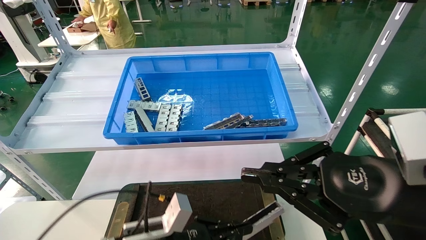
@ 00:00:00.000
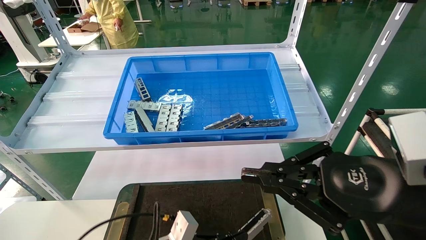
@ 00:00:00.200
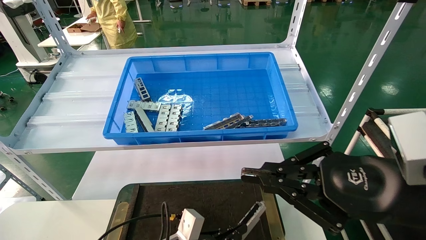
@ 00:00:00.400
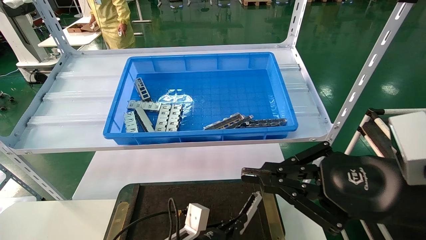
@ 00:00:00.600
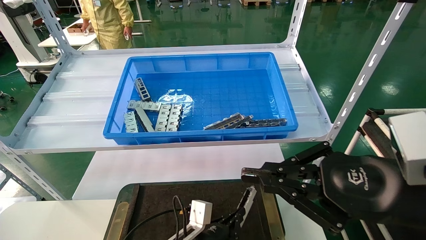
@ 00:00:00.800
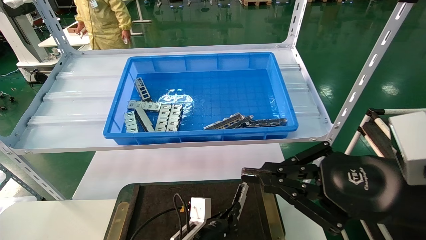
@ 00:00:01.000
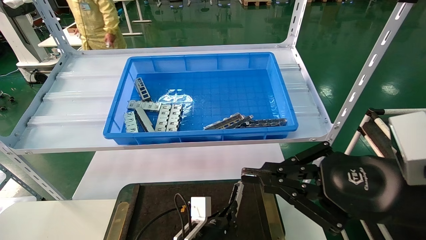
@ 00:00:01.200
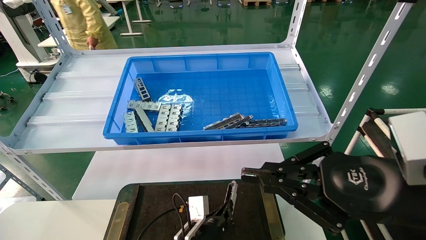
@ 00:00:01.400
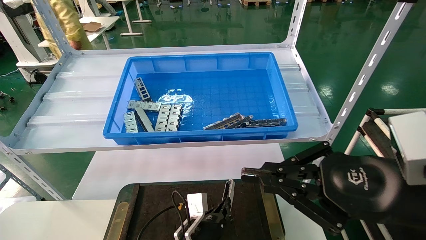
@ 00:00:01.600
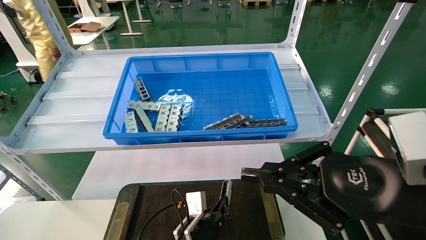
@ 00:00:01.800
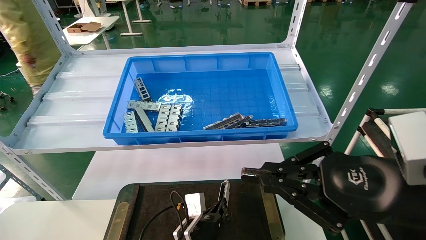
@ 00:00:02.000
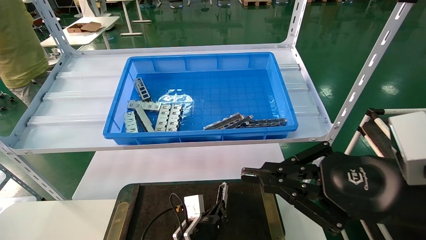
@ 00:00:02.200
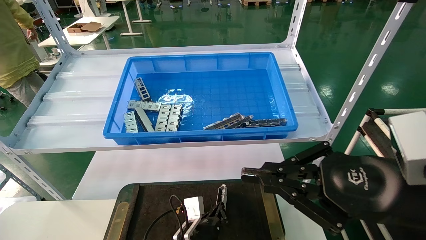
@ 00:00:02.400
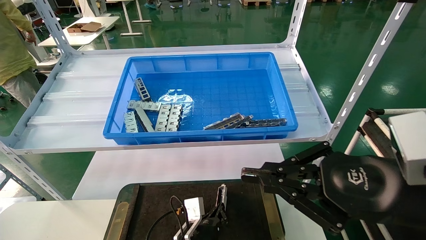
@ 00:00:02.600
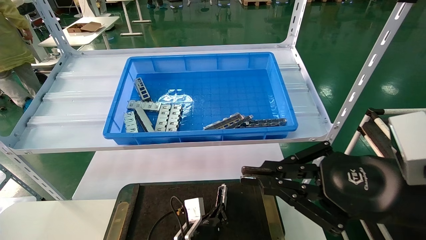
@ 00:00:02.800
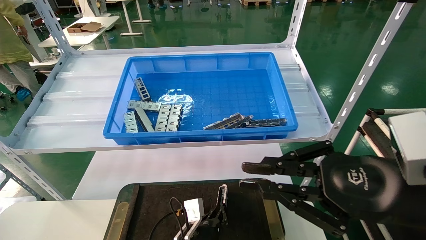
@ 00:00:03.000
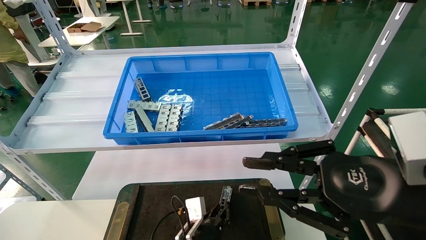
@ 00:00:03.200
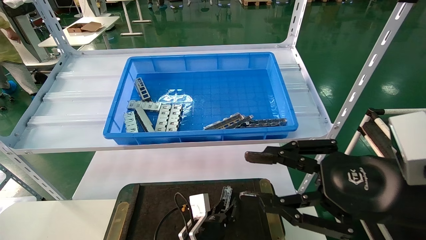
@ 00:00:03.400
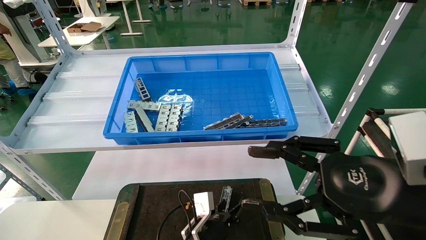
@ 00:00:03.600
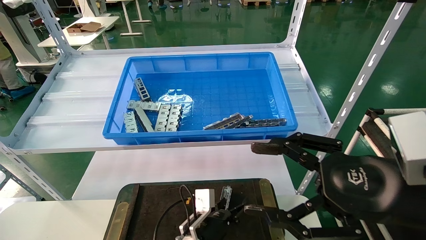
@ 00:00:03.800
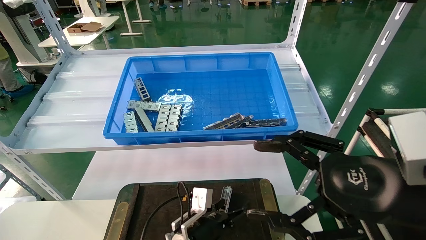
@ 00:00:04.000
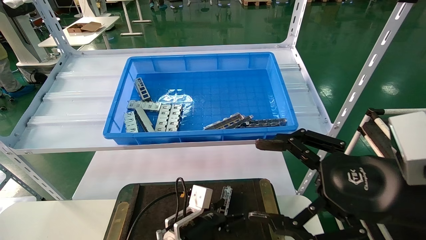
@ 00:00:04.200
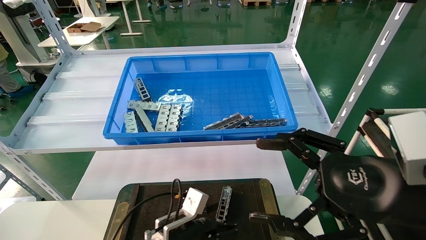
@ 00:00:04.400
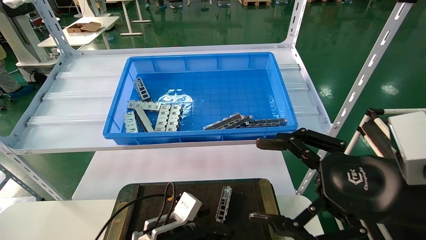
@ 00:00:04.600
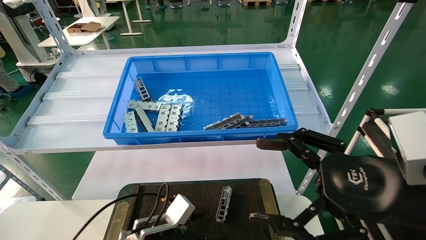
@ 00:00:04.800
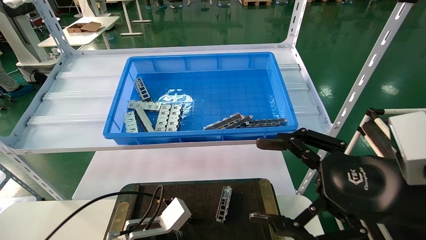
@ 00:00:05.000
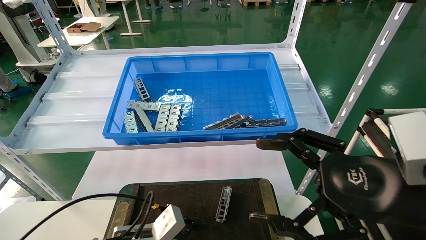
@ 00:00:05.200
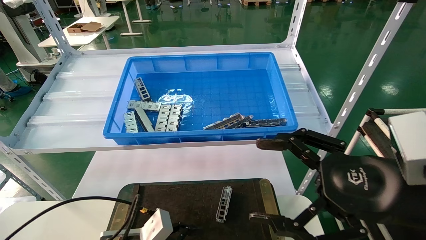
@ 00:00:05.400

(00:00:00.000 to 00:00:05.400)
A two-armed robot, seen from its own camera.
Task of the whole recording: Grasp the part with one hand and place it on the black container.
Step, 00:00:00.000 - 00:00:03.200: Place the front USB bracket into the box.
00:00:00.000 - 00:00:01.400: The left gripper travels downward, to the right and forward by some 15 cm.
00:00:01.400 - 00:00:02.800: The grippers stay close to where they were, moving slightly.
00:00:02.800 - 00:00:04.000: The left gripper moves approximately 5 cm, and opens up. The right gripper opens its fingers.
00:00:04.000 - 00:00:05.400: The left gripper moves to the left, backward and upward, approximately 15 cm.
